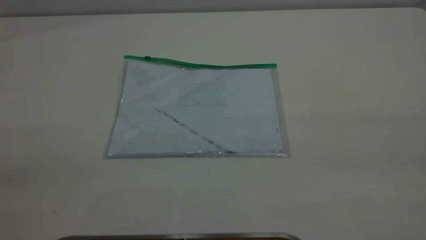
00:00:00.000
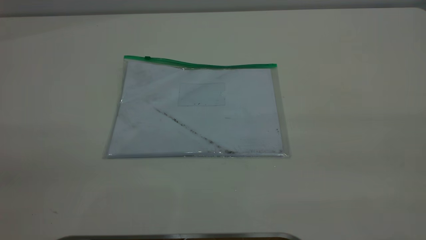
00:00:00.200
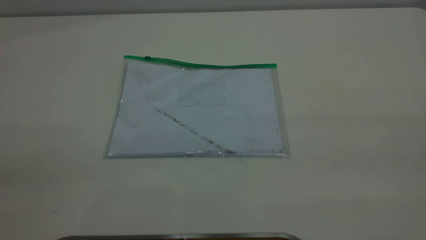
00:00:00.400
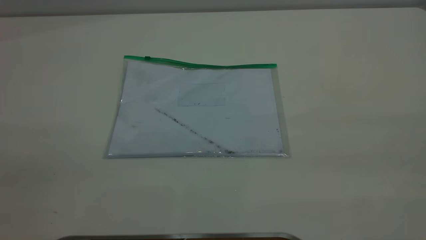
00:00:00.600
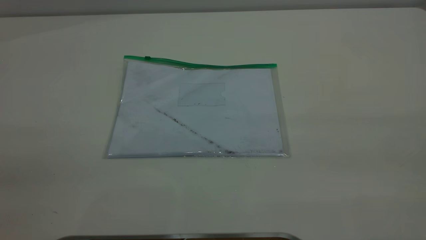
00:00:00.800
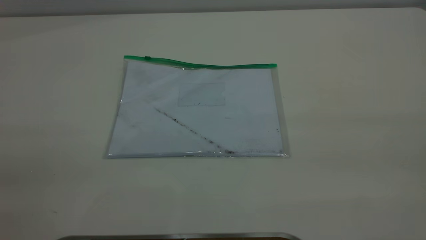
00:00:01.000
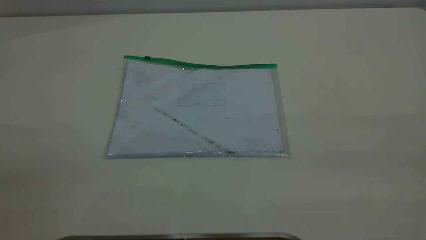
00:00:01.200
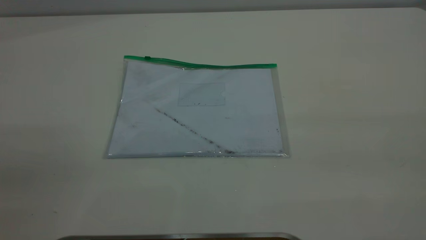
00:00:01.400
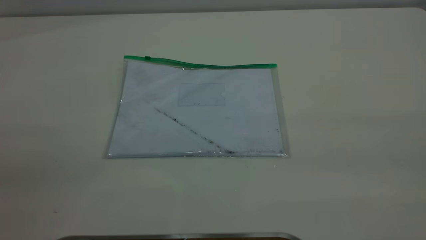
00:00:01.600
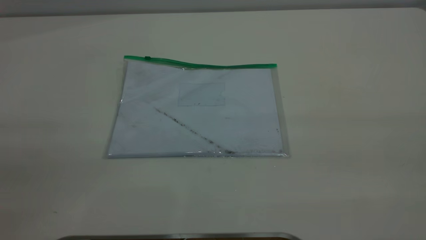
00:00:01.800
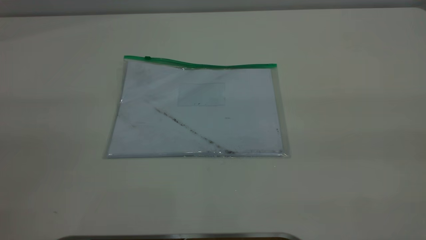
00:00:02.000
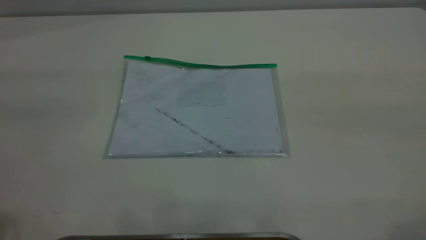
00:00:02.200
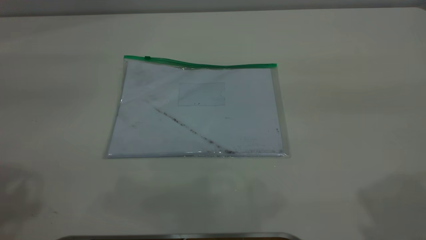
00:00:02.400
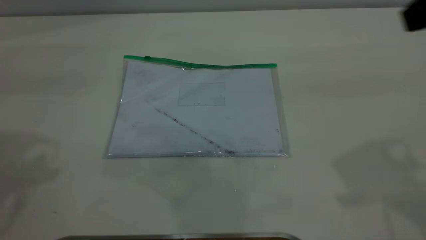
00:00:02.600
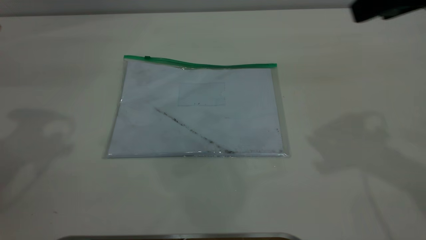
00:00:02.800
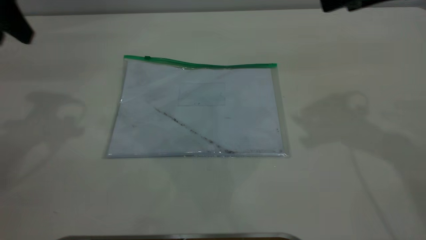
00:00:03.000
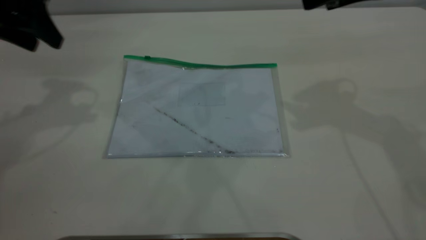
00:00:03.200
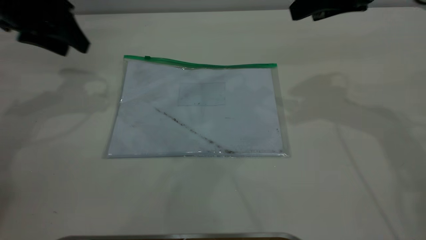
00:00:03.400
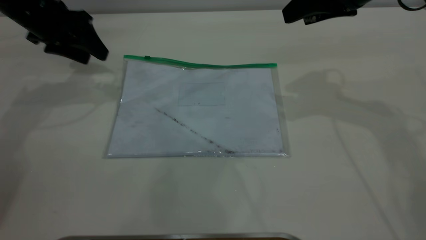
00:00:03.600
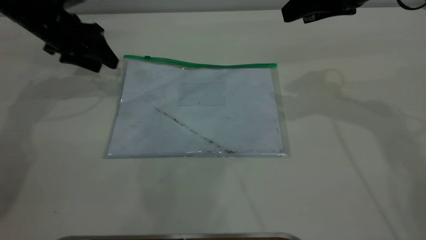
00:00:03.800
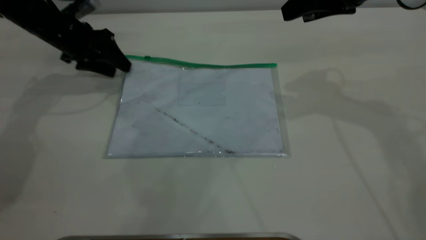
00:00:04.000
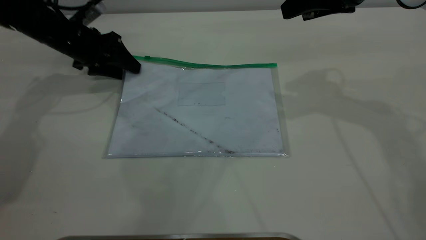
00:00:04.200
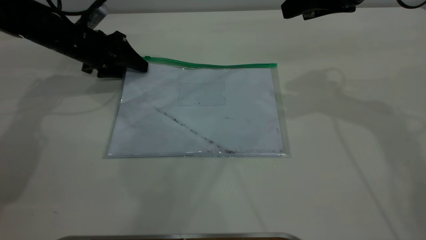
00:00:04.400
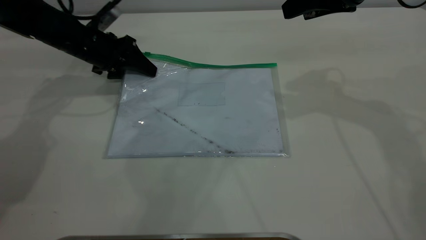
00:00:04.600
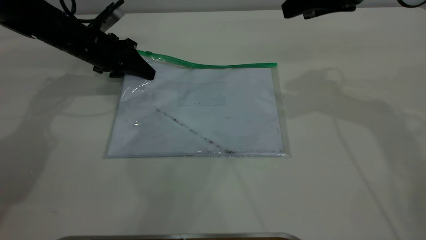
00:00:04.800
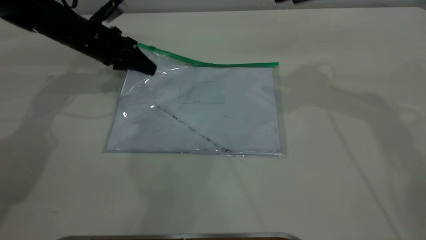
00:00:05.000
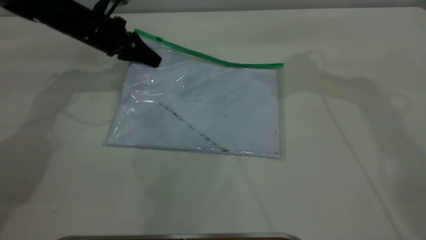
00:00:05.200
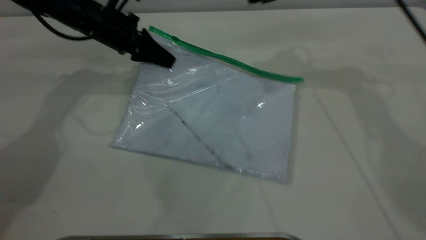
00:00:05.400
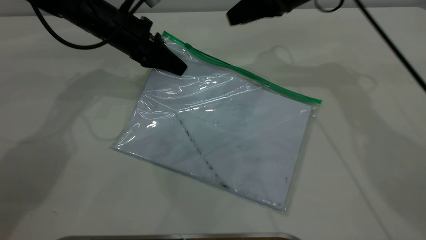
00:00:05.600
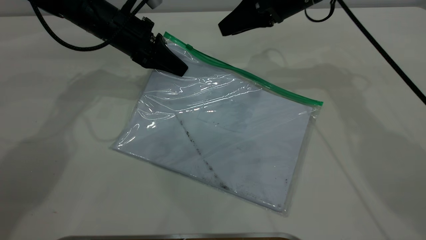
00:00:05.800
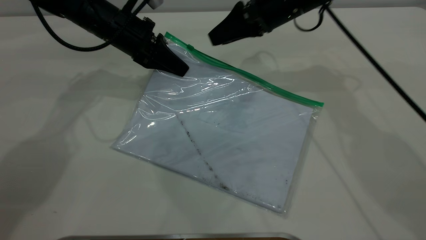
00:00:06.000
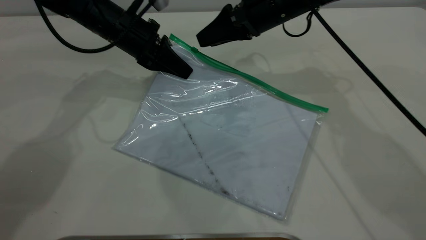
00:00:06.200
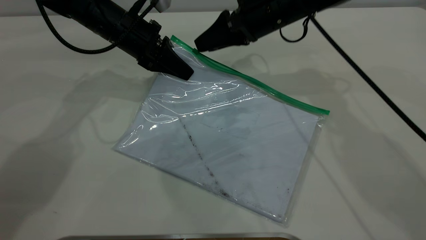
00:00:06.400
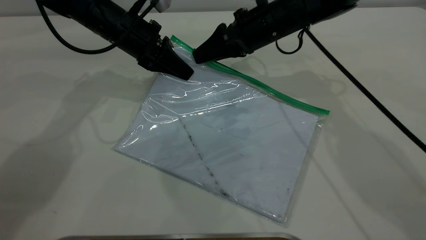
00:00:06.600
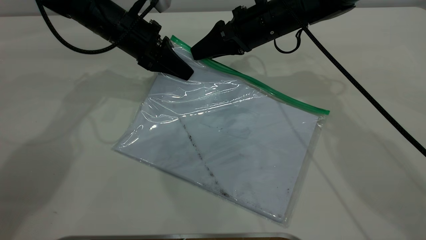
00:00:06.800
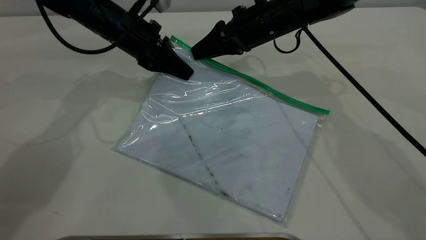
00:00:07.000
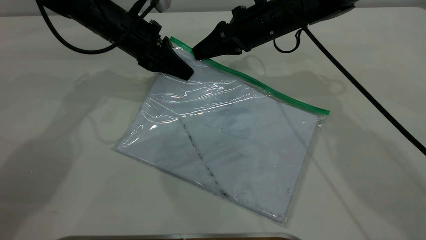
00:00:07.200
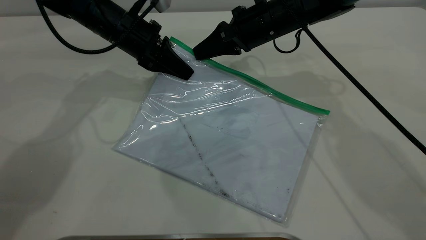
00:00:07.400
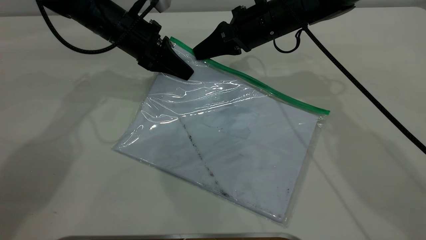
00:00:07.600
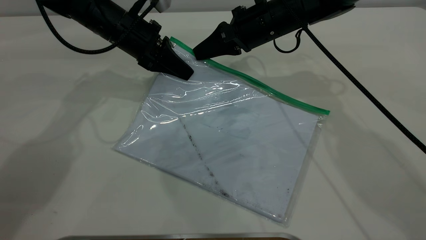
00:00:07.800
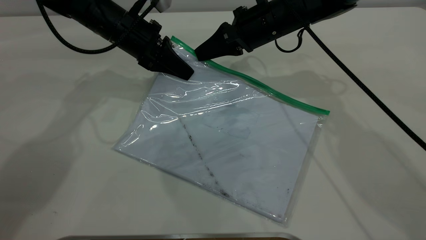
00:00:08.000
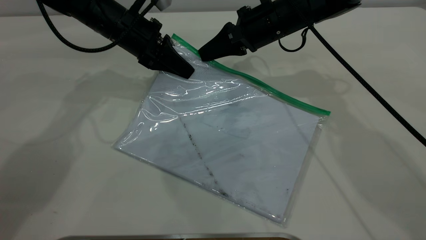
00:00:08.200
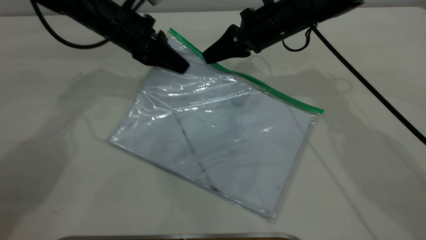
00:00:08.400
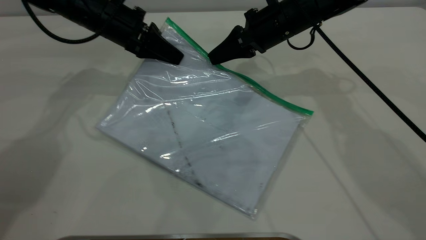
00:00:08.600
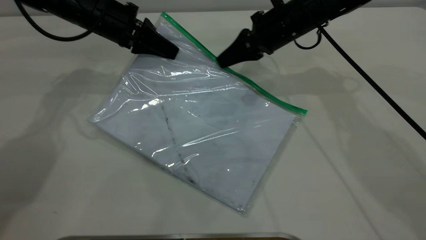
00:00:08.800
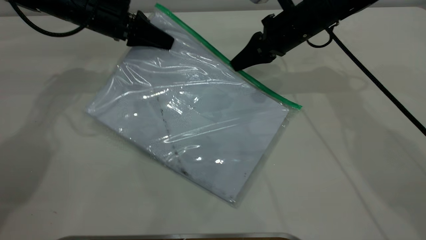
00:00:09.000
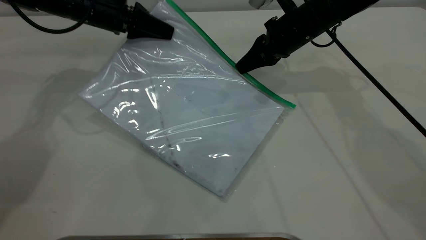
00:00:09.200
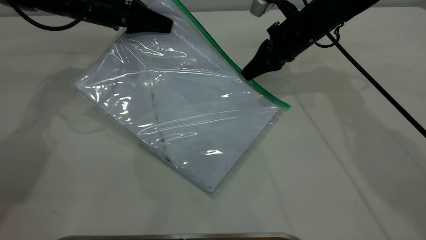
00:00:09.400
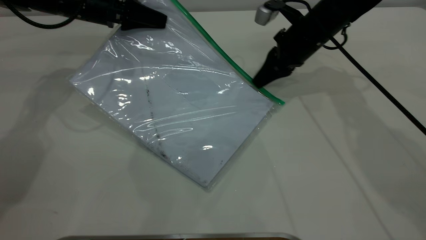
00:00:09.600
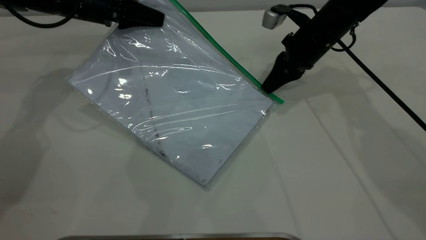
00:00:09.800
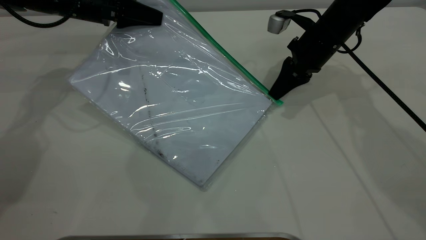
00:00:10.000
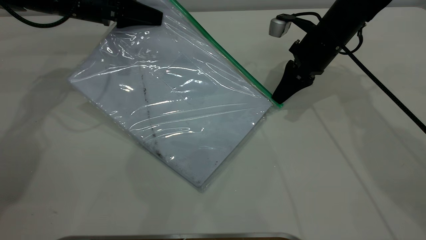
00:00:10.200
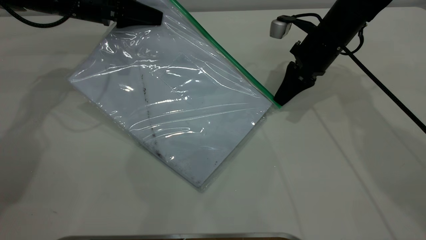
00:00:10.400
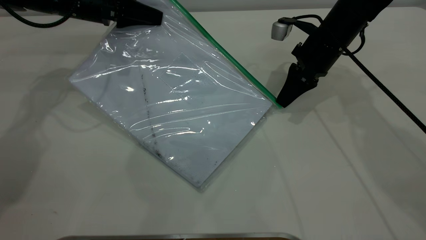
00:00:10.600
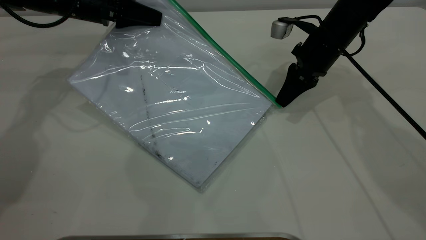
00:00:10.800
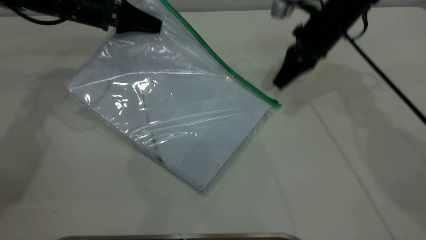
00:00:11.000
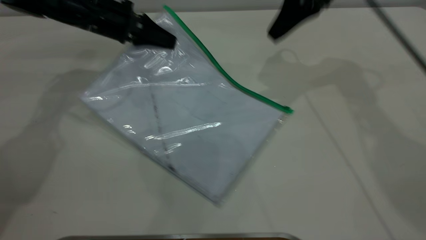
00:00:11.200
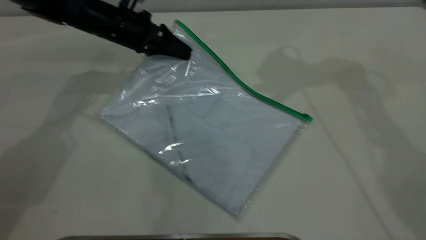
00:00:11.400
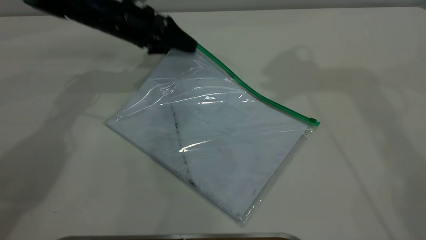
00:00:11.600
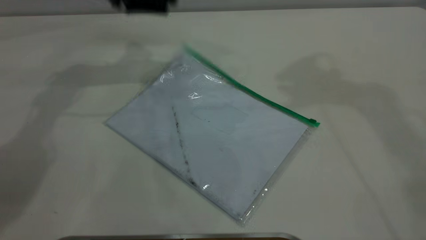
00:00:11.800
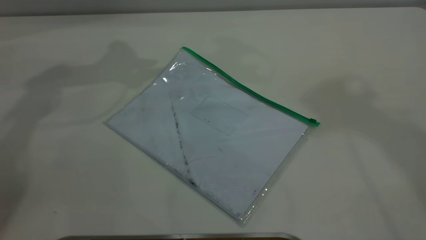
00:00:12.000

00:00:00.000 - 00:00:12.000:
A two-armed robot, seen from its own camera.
Step, 00:00:00.000 - 00:00:05.200: Pick up the transparent plastic bag with the left gripper.
Step, 00:00:05.400 - 00:00:10.800: Pulling up the zipper on the transparent plastic bag with the right gripper to close it.
Step, 00:00:11.000 - 00:00:11.600: Place the transparent plastic bag.
00:00:00.000 - 00:00:01.600: Neither gripper changes place.
00:00:01.600 - 00:00:03.000: The left gripper travels forward by roughly 35 cm.
00:00:03.000 - 00:00:04.400: The right gripper heads forward, covering approximately 5 cm. The left gripper shifts approximately 25 cm downward and forward.
00:00:04.400 - 00:00:06.000: The right gripper is displaced to the left, downward and forward by approximately 15 cm. The left gripper heads to the right, covering about 10 cm, and closes up.
00:00:06.000 - 00:00:07.600: The right gripper closes.
00:00:07.600 - 00:00:09.000: The left gripper shifts by some 5 cm, while the right gripper travels to the right by about 5 cm.
00:00:10.400 - 00:00:12.000: The right gripper is displaced upward by some 50 cm, and opens up; the left gripper moves upward, some 20 cm, and opens up.

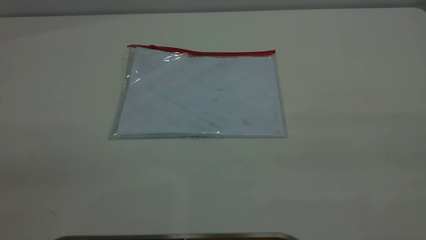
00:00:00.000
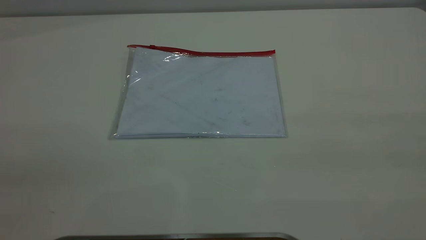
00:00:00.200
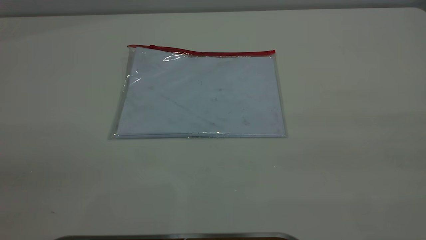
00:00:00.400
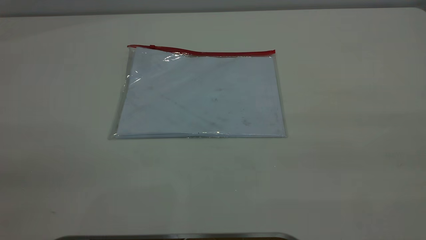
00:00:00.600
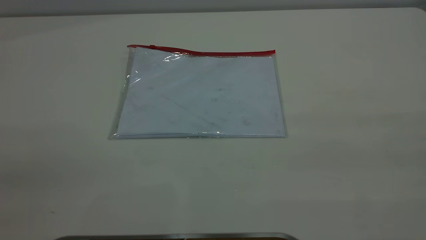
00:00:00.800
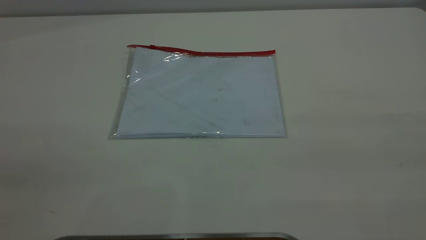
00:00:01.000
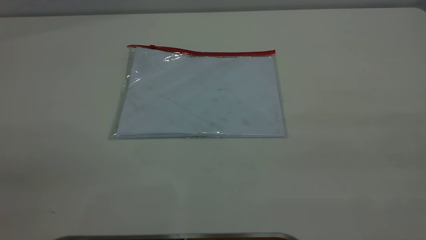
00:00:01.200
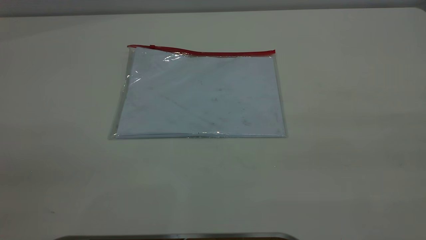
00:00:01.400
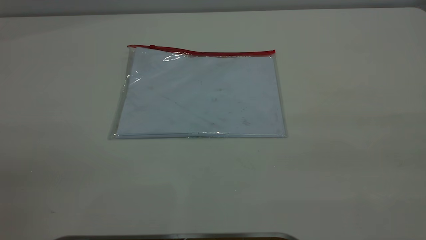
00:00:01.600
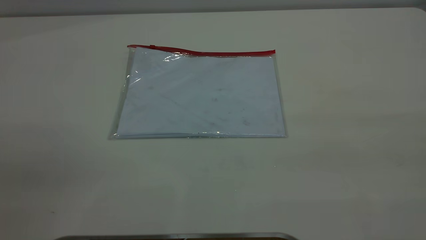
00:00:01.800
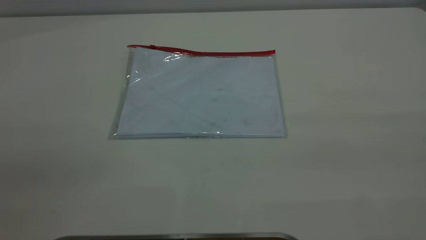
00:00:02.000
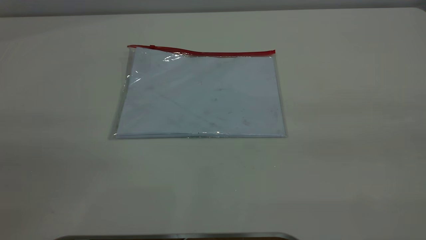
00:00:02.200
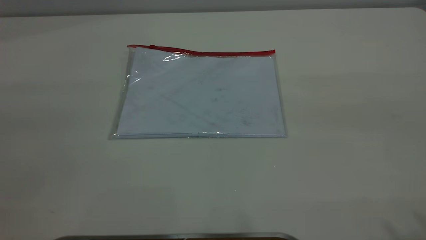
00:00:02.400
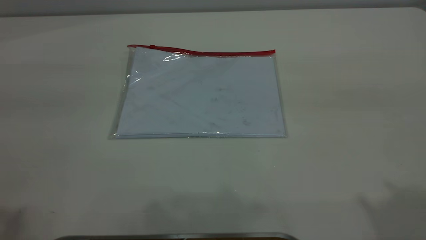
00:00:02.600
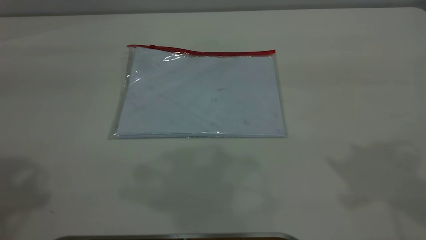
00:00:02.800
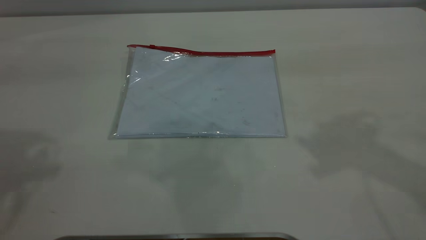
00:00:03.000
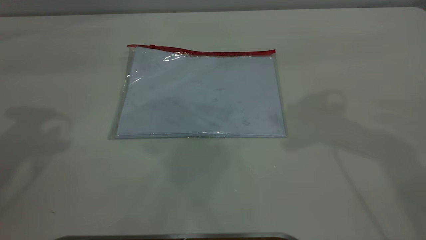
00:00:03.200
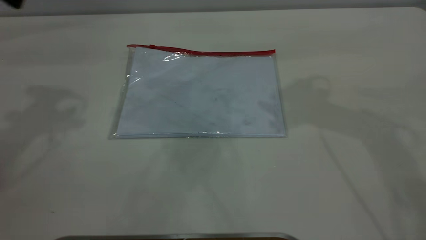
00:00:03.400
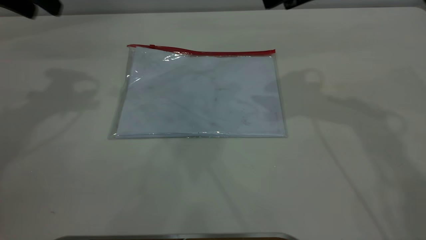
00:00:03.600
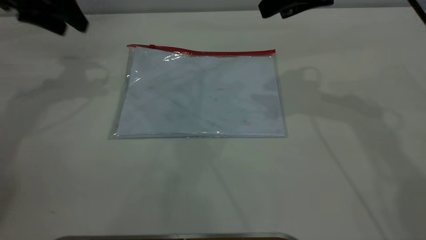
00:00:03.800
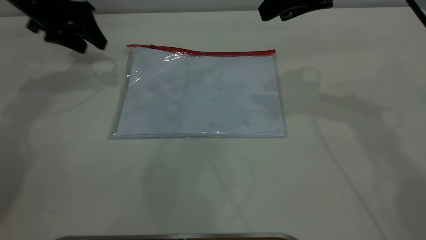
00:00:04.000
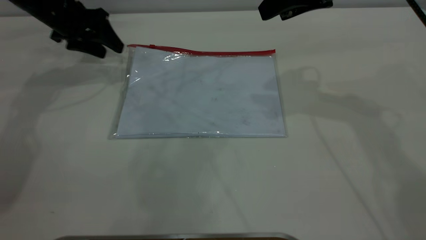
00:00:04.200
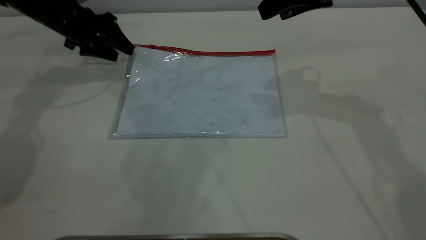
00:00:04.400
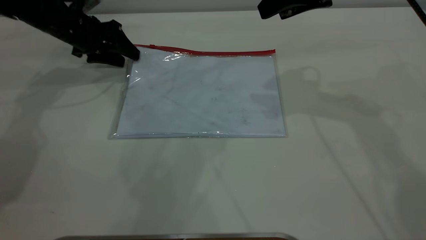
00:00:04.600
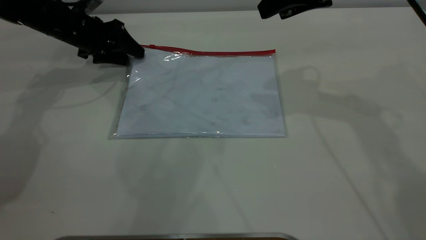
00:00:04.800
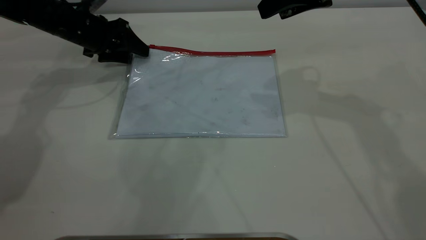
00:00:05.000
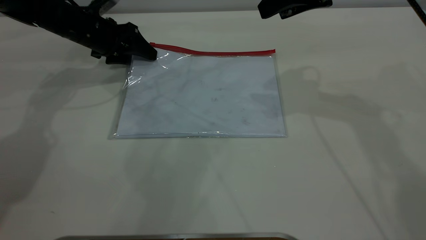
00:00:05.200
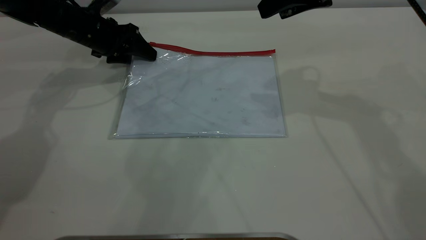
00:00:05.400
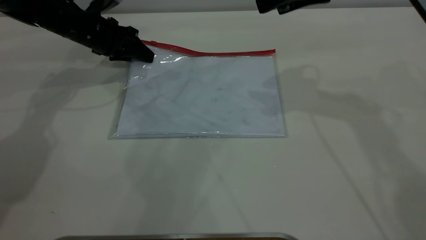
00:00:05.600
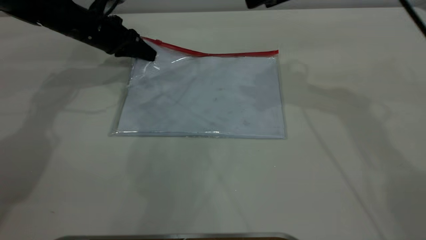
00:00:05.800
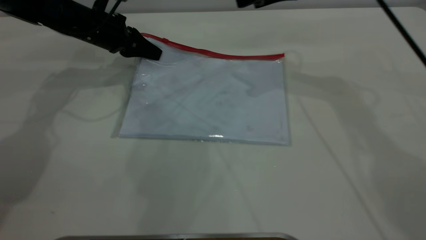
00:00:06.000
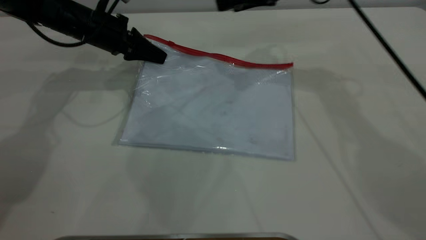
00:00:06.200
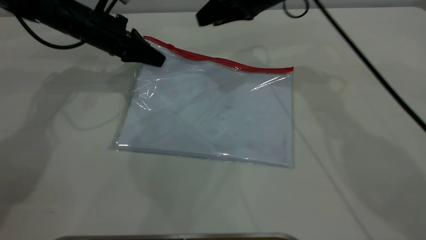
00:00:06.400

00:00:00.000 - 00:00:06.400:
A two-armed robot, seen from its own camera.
Step, 00:00:00.000 - 00:00:05.800: Pick up the transparent plastic bag with the left gripper.
00:00:00.000 - 00:00:01.600: Both grippers stay about where they are.
00:00:03.200 - 00:00:04.800: The right gripper moves forward and downward, roughly 10 cm. The left gripper is displaced downward and forward by some 30 cm.
00:00:04.800 - 00:00:06.400: The left gripper changes place by roughly 5 cm, and closes. The right gripper shifts approximately 15 cm to the left, forward and downward.
